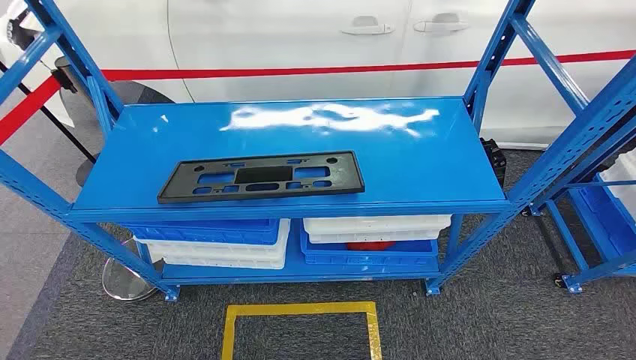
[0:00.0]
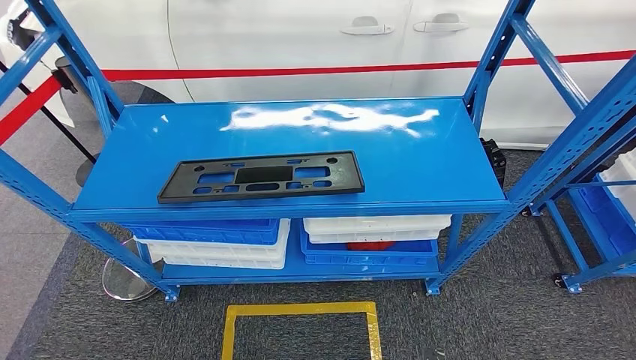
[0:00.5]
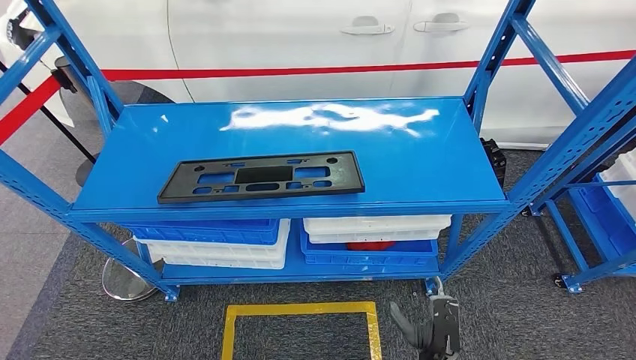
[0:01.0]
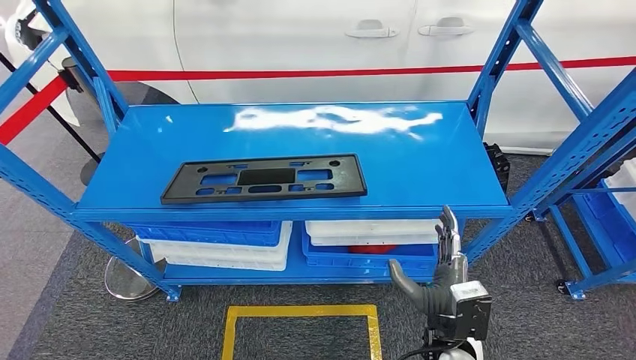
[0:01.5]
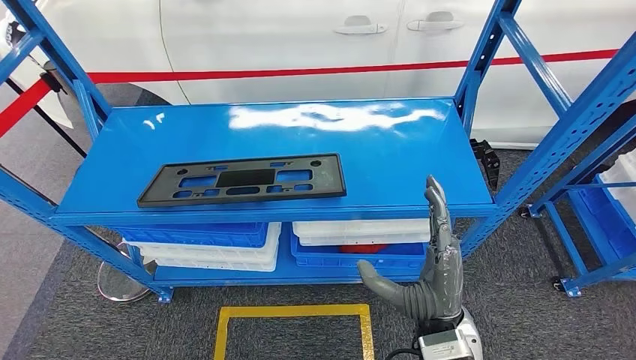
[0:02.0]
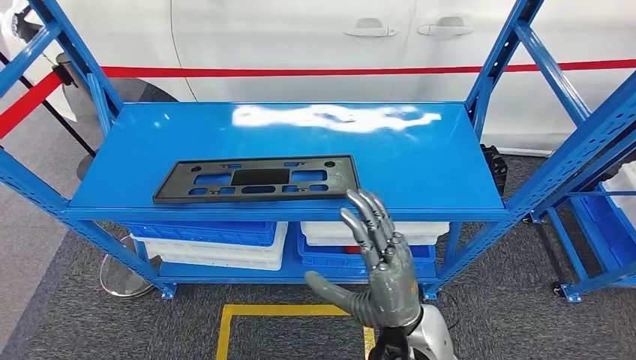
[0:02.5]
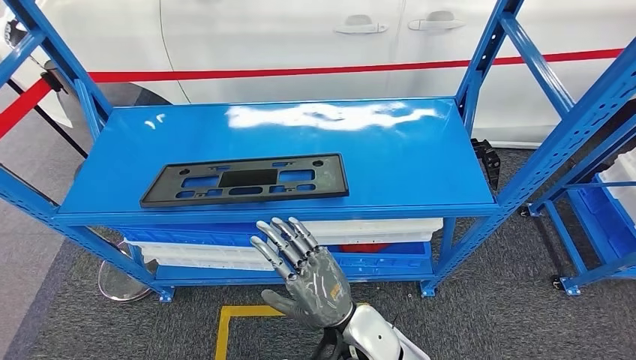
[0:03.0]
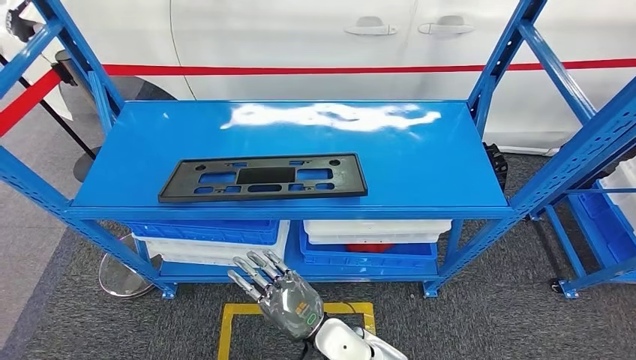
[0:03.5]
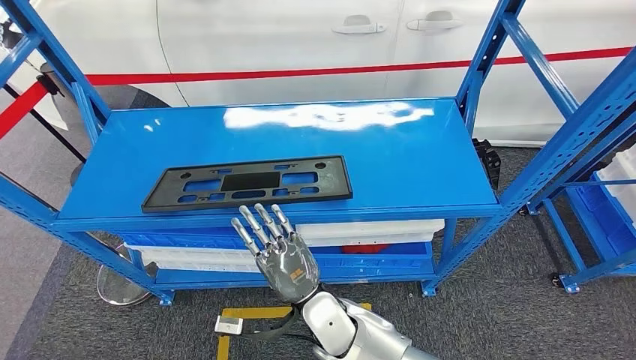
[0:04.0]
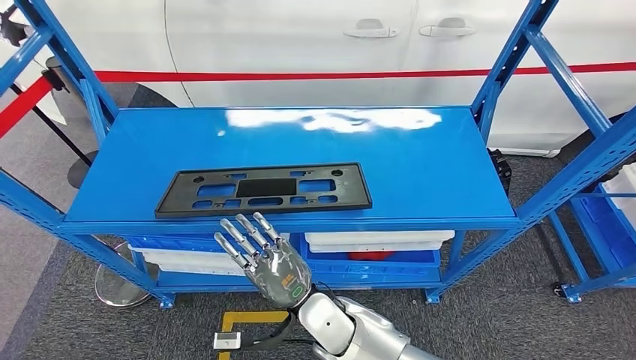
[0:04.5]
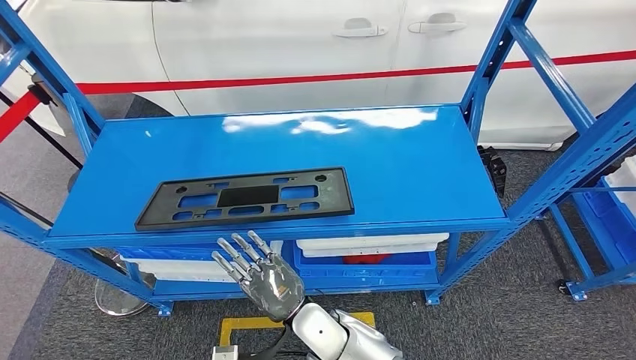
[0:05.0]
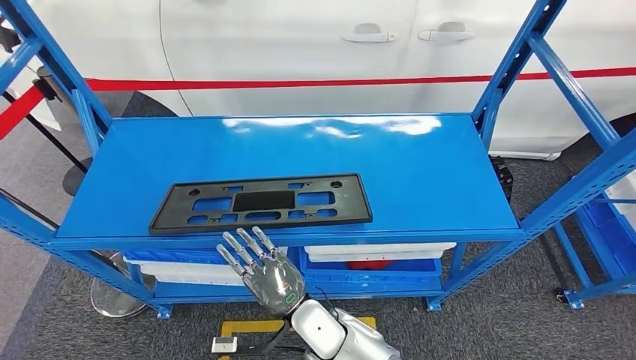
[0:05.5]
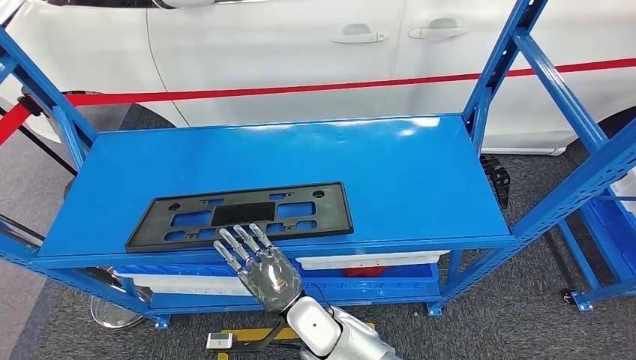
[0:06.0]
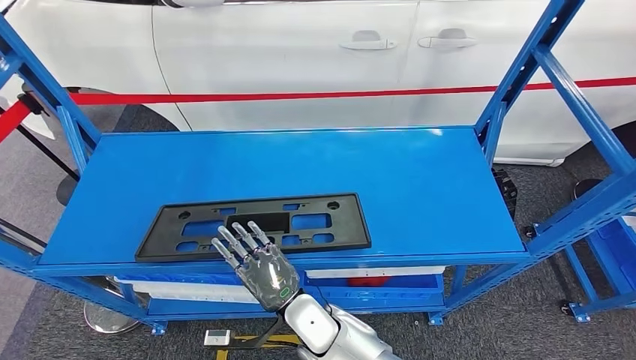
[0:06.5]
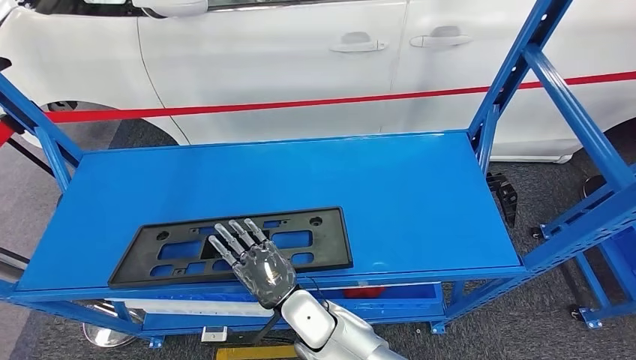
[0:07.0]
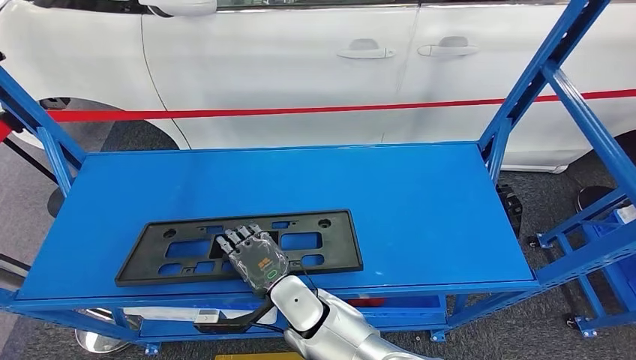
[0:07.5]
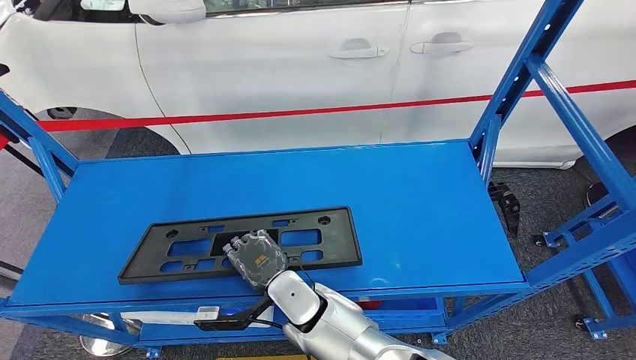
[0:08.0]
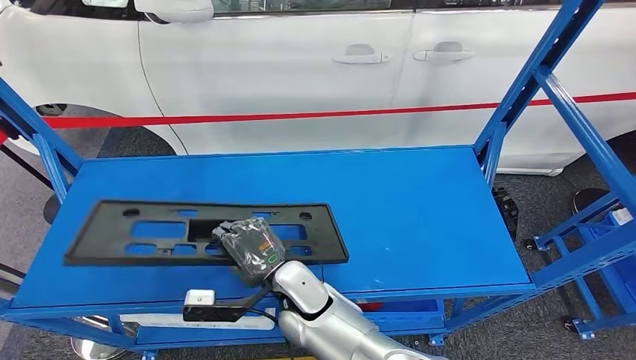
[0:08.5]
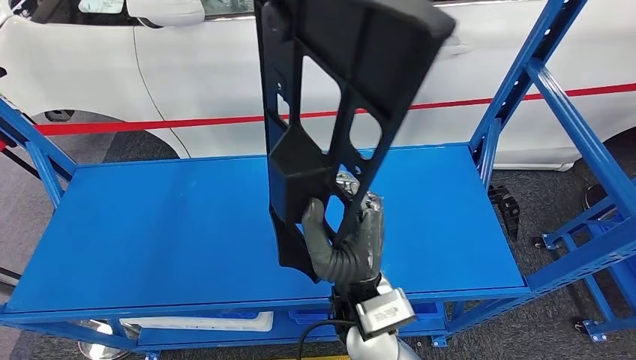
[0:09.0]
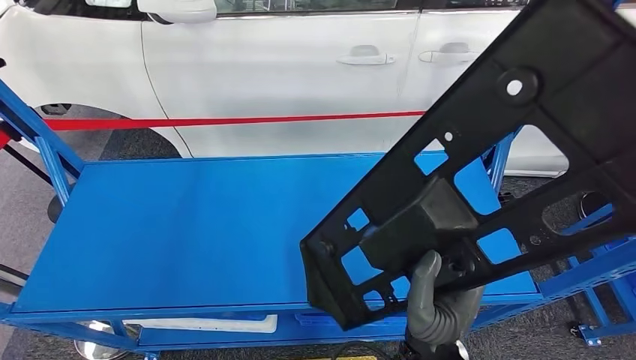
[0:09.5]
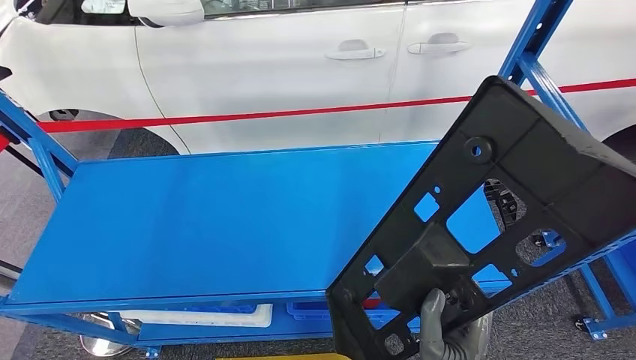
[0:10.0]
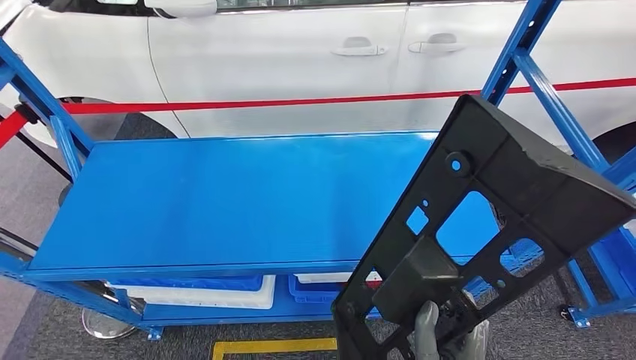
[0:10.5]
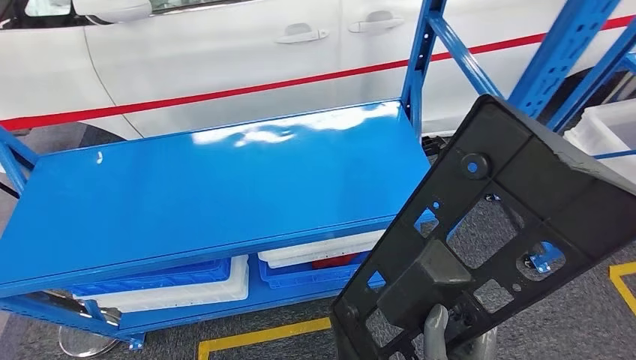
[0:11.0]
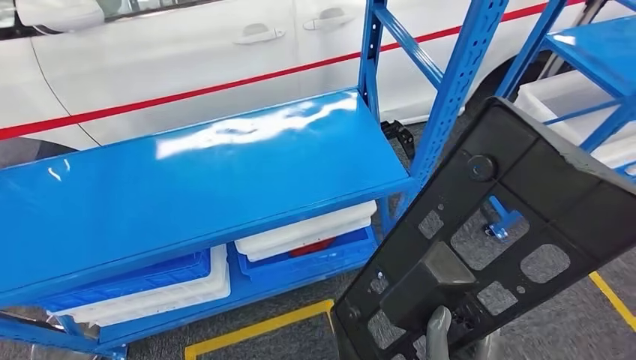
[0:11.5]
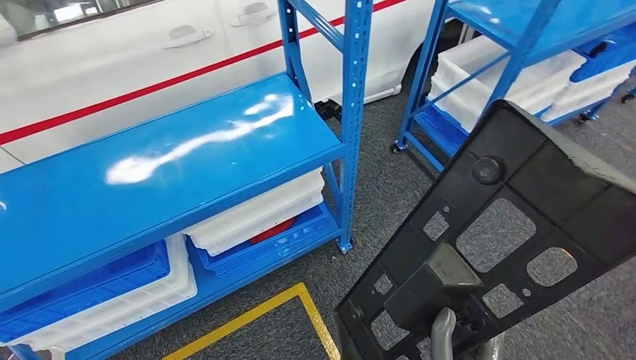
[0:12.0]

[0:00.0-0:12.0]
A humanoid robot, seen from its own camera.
Step, 0:00.0 to 0:09.5: Pick up the large material from the shelf.
0:02.0 to 0:04.0: The right hand shifts some 15 cm to the left and downward.

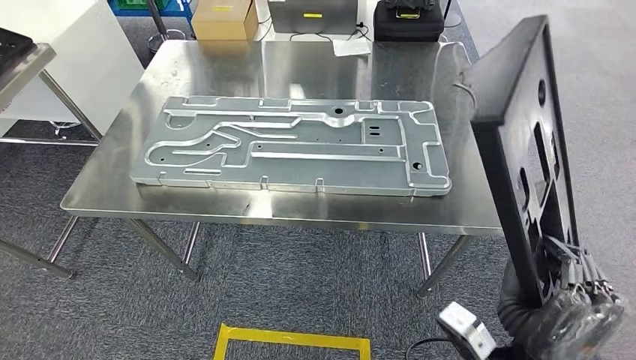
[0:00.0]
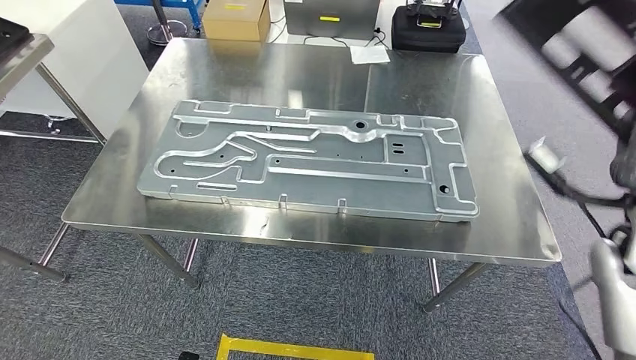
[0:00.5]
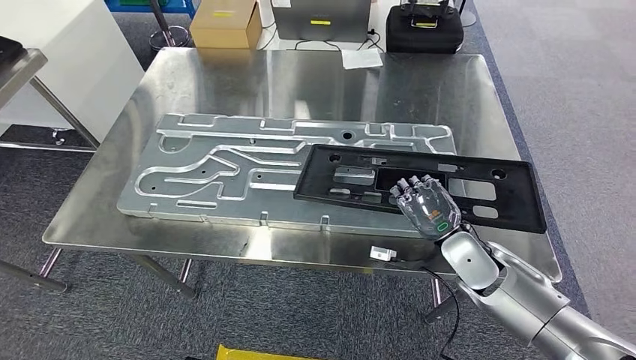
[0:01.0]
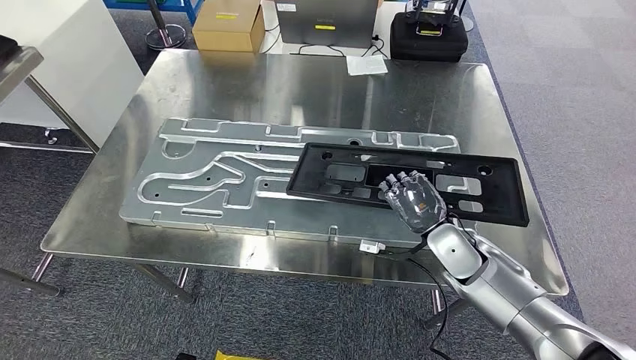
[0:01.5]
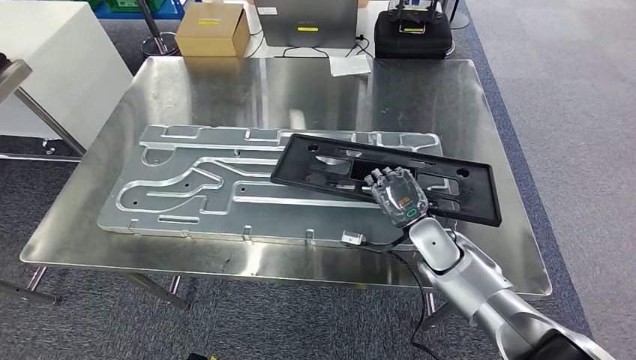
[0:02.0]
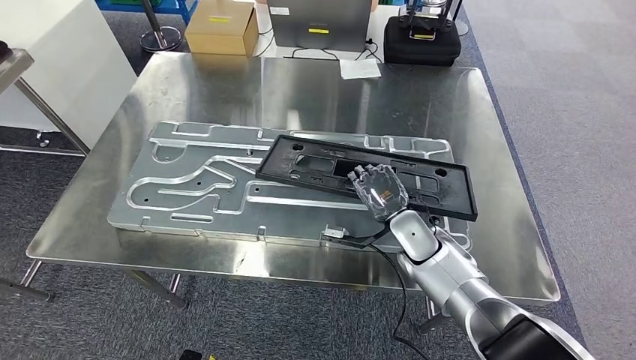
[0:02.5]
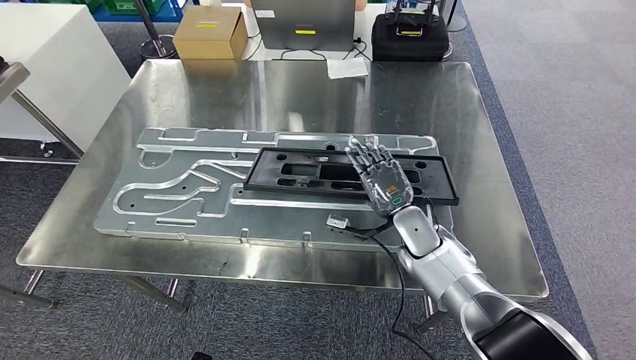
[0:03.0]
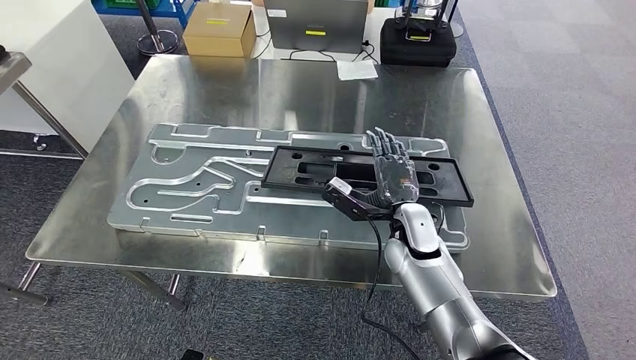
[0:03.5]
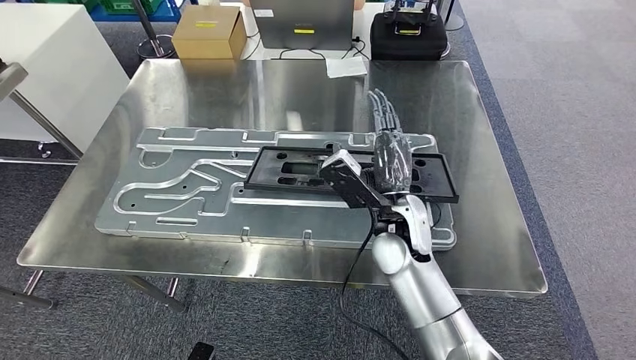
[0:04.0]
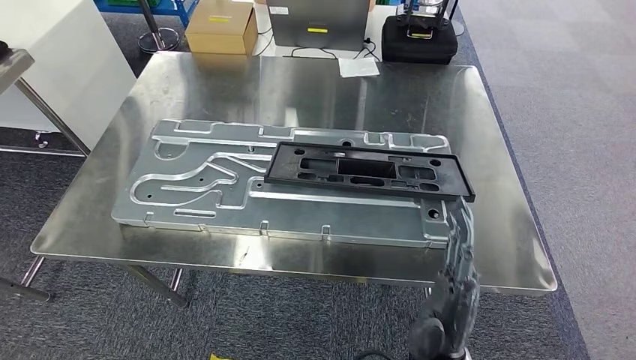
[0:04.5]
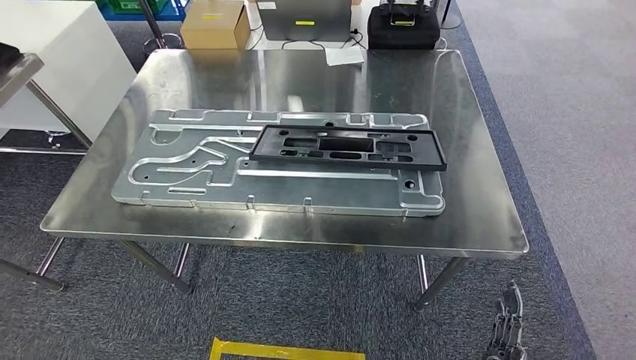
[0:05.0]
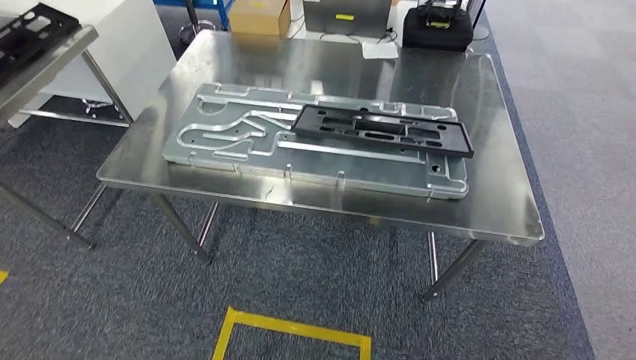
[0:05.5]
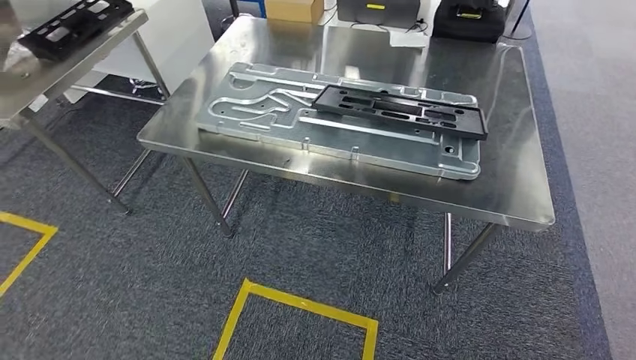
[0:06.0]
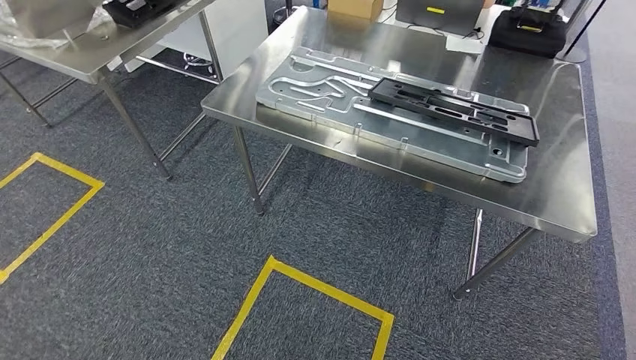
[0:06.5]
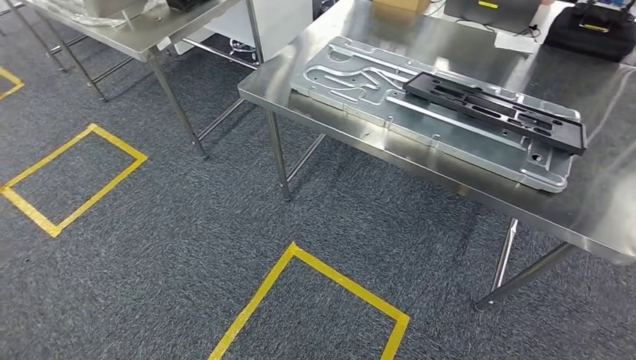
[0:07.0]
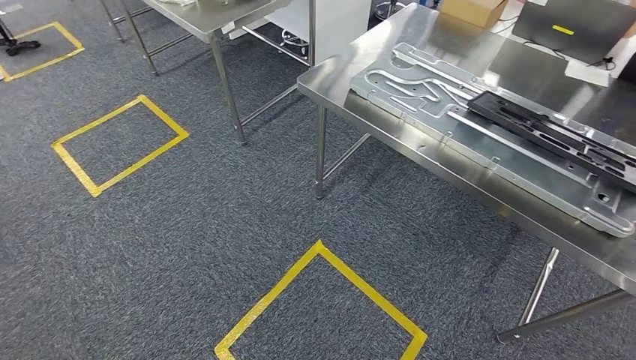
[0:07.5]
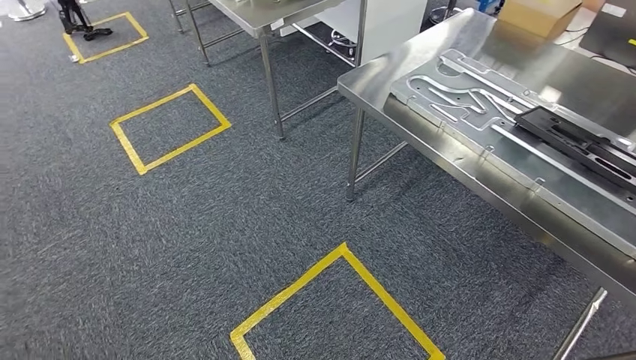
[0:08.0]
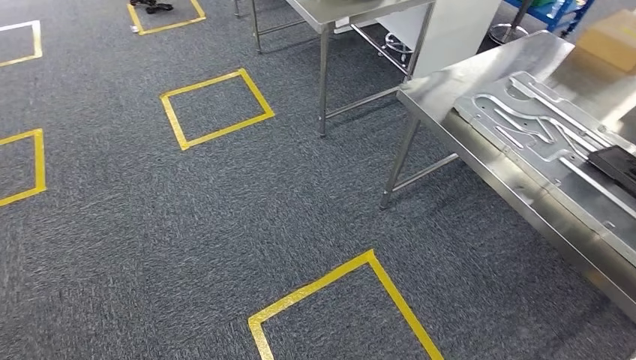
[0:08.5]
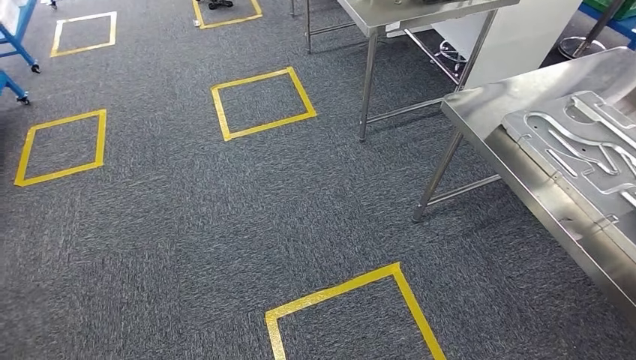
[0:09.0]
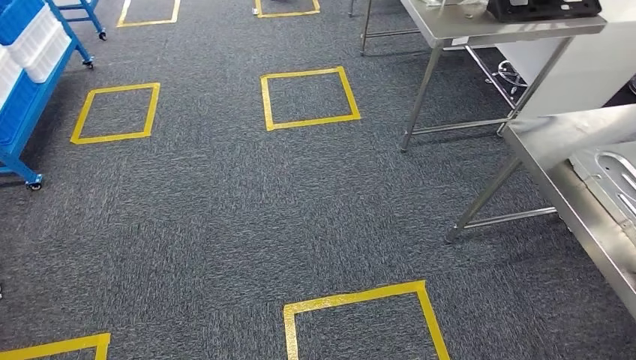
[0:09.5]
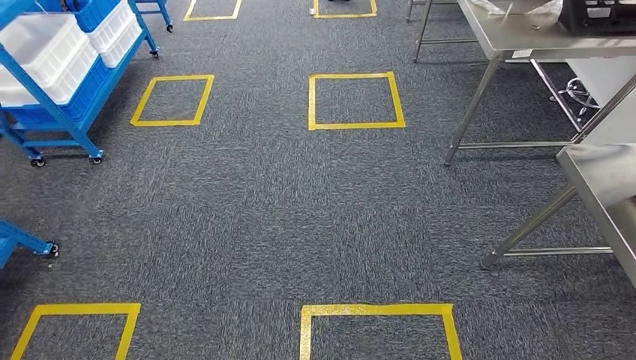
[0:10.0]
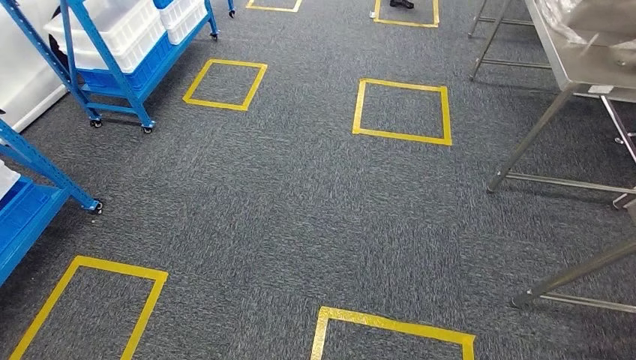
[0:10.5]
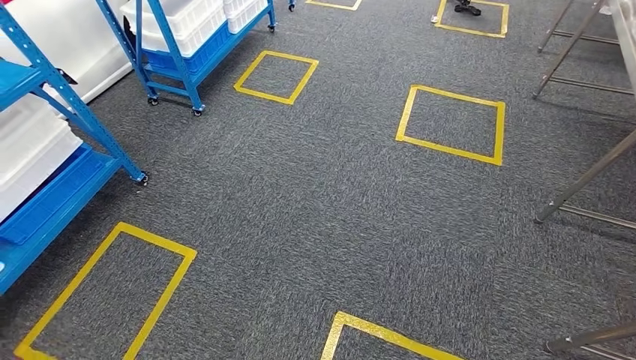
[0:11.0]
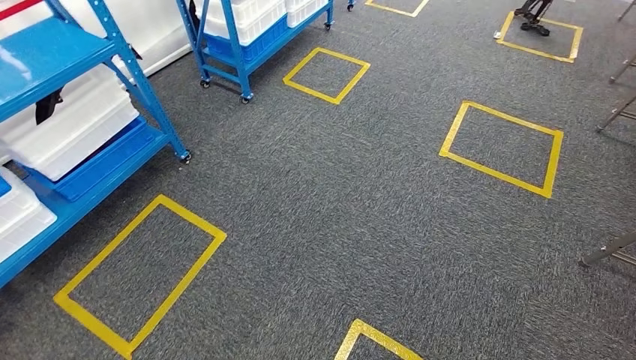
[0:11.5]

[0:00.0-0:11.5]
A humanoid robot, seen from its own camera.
Step, 0:01.0 to 0:05.5: Insert the large material into the corresponding hole on the workbench.
